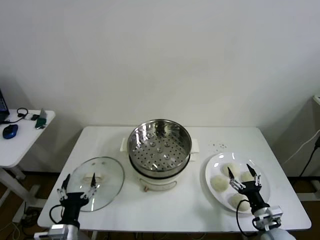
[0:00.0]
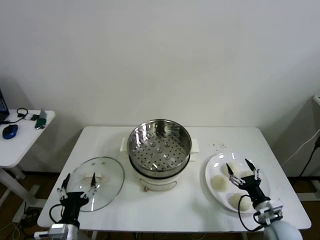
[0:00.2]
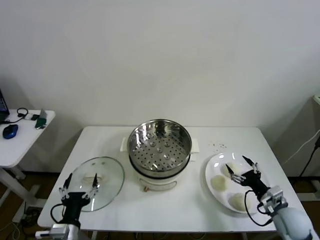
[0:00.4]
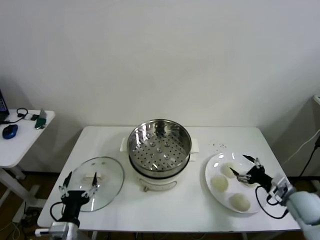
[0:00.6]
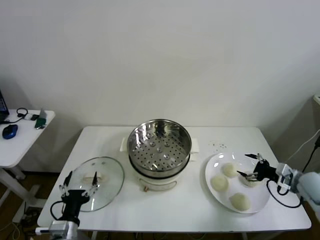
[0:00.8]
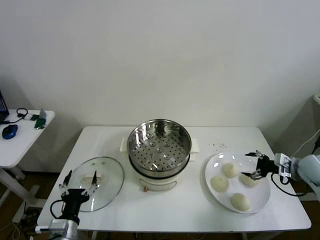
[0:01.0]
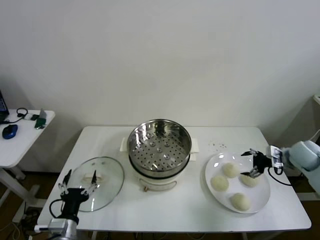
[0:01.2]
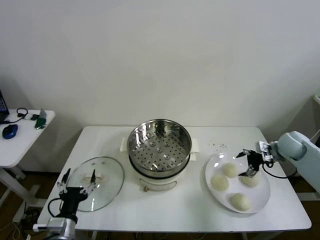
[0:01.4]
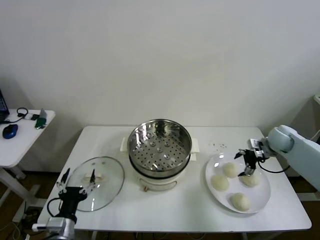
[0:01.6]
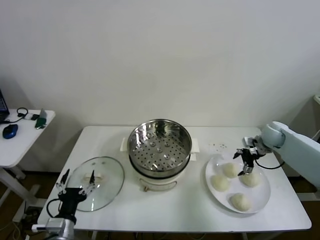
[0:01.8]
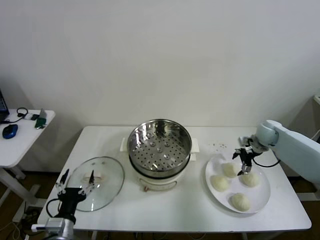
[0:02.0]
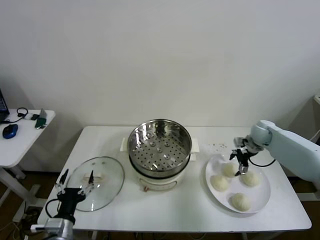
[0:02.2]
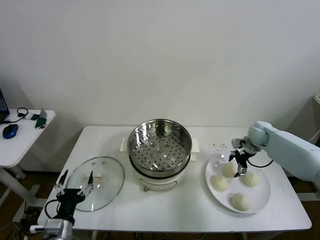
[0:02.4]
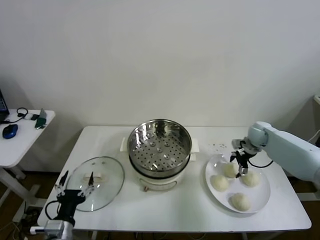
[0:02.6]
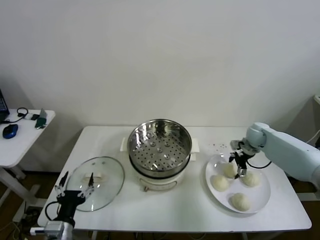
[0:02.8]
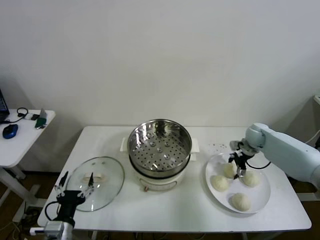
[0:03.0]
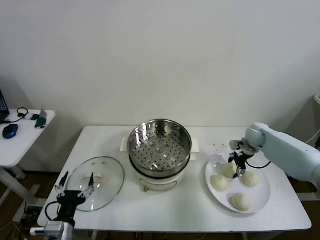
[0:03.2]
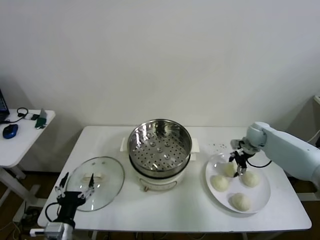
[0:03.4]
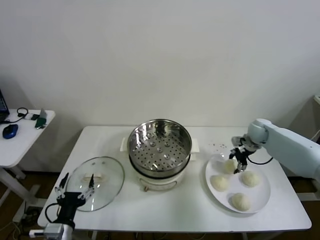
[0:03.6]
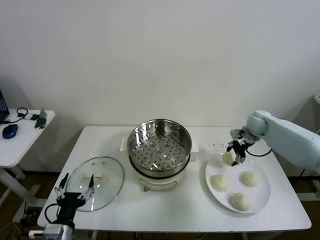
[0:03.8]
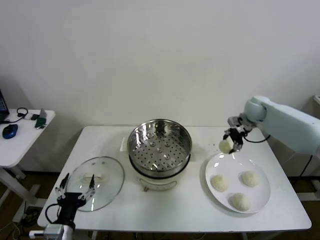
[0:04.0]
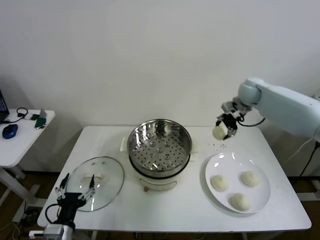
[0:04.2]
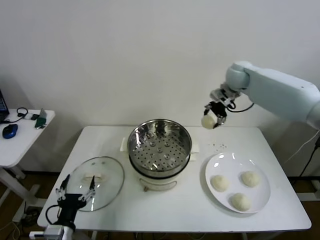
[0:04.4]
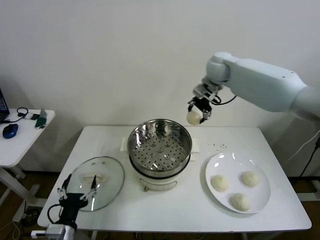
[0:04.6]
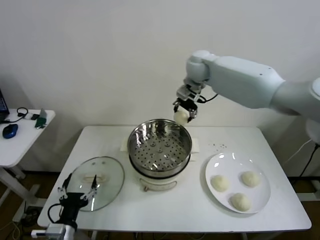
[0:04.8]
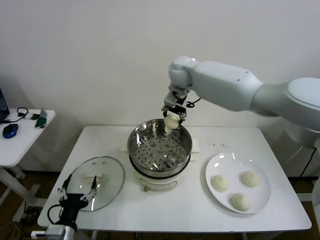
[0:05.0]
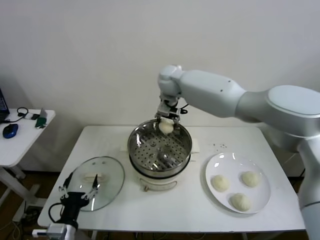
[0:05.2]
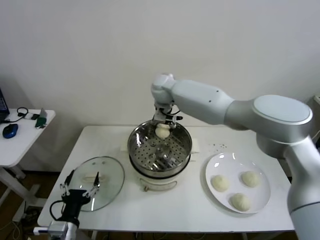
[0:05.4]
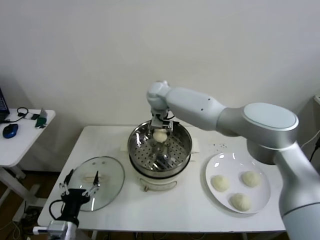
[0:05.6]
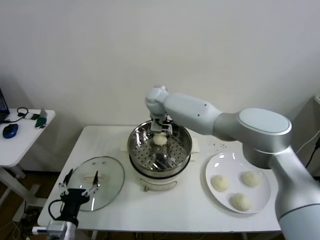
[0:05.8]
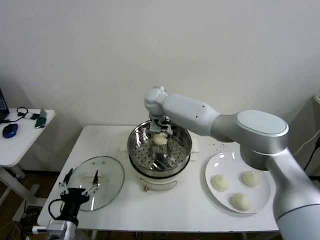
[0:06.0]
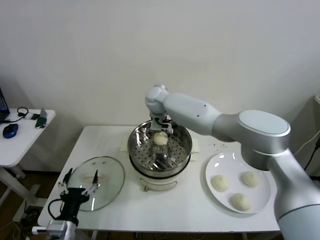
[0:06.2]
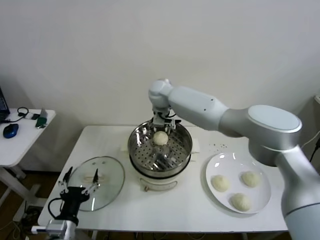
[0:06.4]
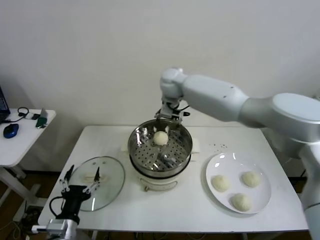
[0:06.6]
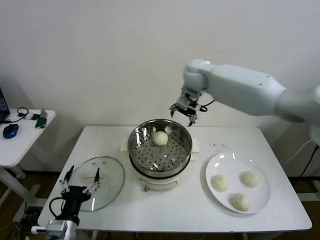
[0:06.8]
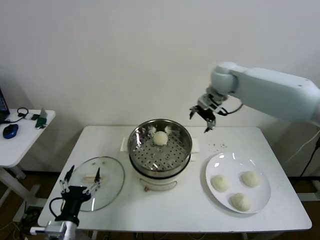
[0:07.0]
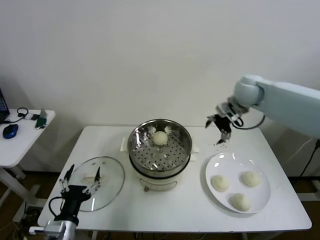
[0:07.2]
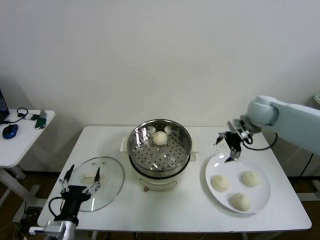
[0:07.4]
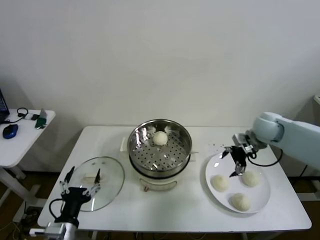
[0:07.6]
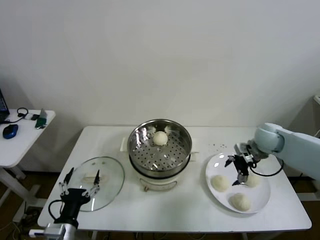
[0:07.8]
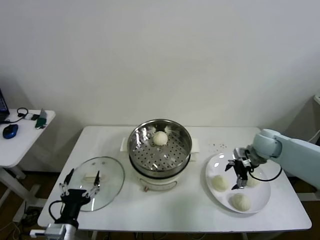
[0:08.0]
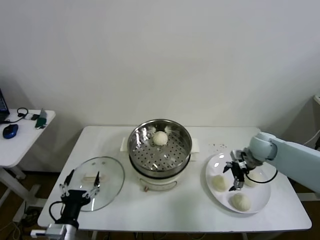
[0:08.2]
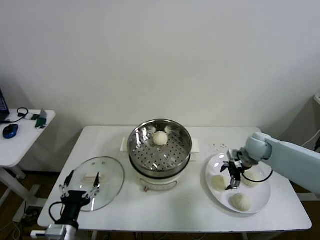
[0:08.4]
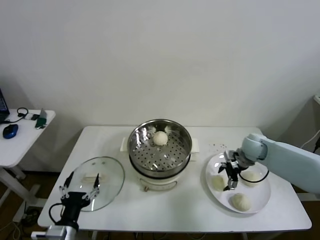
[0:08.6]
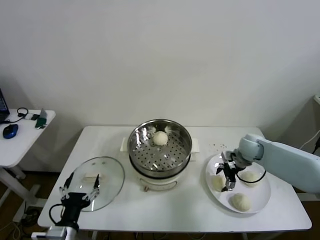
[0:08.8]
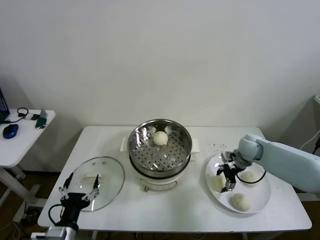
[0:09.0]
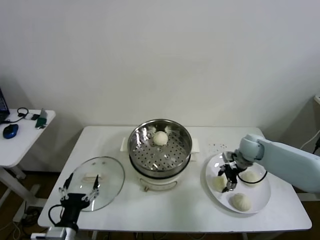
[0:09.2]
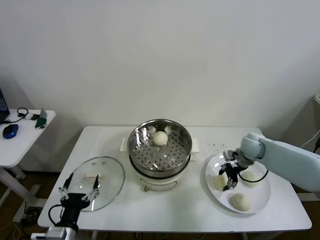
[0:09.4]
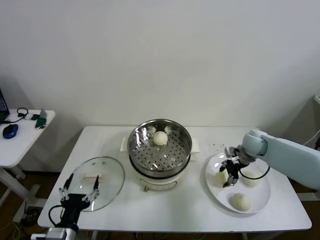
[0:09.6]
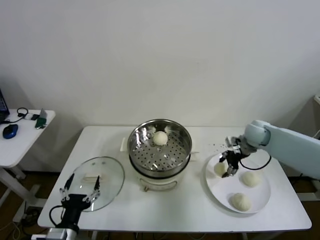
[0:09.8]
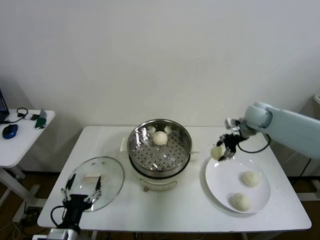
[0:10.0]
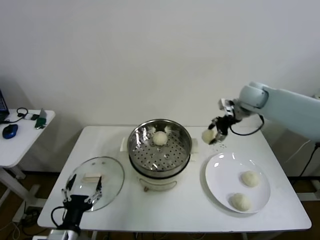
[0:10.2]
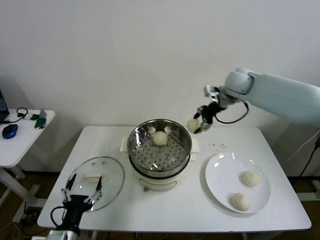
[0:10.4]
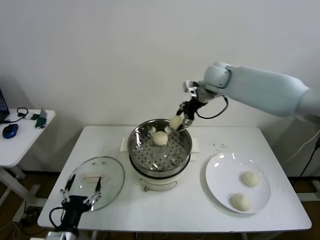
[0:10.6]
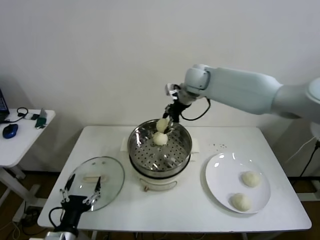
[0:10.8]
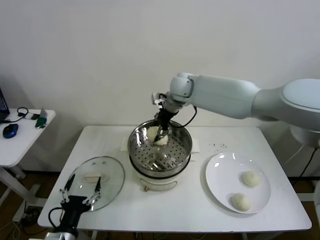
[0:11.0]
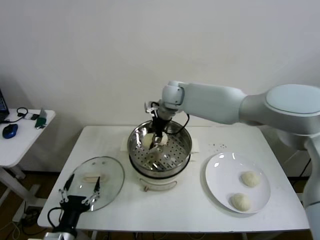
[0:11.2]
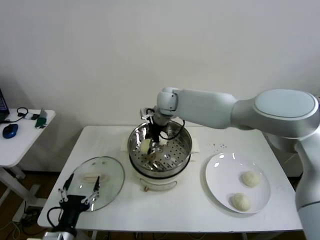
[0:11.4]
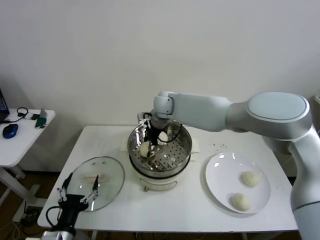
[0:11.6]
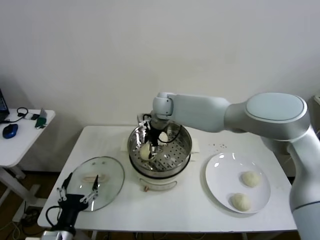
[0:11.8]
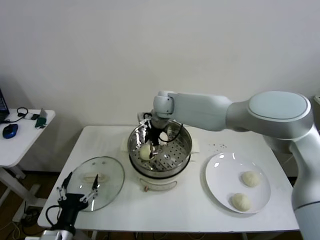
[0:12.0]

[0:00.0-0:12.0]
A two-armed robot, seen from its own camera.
Step, 0:00.0 to 0:03.2: Grasp the baozi in the plate with right gripper.
Step, 0:03.6 to 0:06.4: Place the baozi on the steamer with right gripper.
Step, 0:06.6 to 0:09.0: Grasp the baozi in the plate with right gripper.
0:01.6 to 0:03.0: The right gripper ends up some 5 cm from where it was, and closes.
0:03.0 to 0:04.4: The right gripper goes roughly 30 cm upward and to the left, and closes.
0:04.4 to 0:06.0: The right gripper travels to the left and downward by about 25 cm, and opens its fingers.
0:06.0 to 0:07.6: The right gripper moves to the right, about 40 cm.
0:07.6 to 0:09.0: The right gripper moves downward, roughly 10 cm, and closes up.
0:09.0 to 0:10.4: The right gripper moves upward, to the left and forward, some 30 cm, and closes its fingers.
0:10.4 to 0:12.0: The right gripper moves to the left, about 20 cm, and opens its fingers.

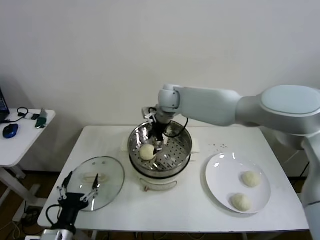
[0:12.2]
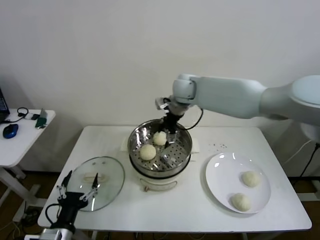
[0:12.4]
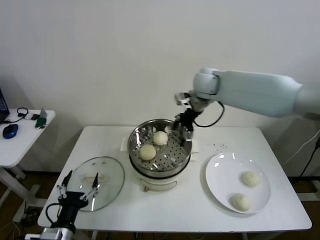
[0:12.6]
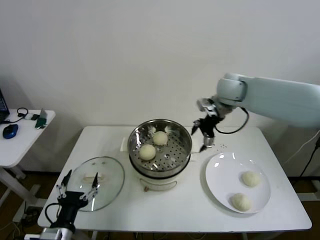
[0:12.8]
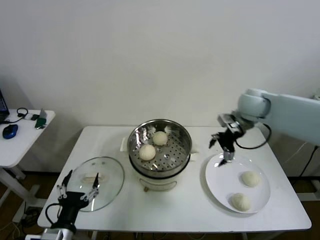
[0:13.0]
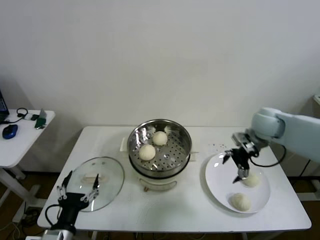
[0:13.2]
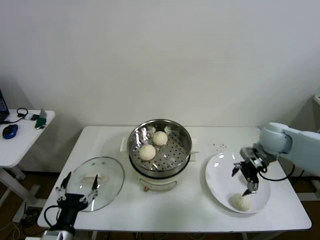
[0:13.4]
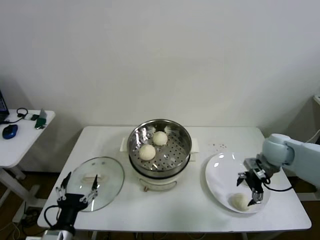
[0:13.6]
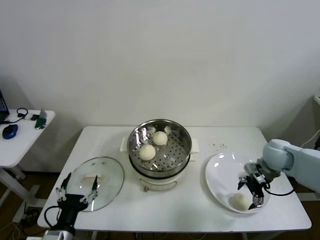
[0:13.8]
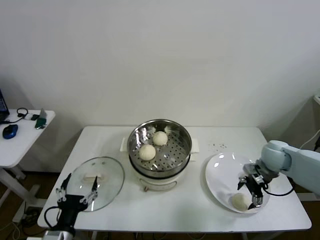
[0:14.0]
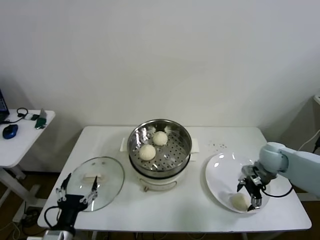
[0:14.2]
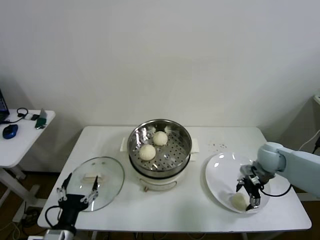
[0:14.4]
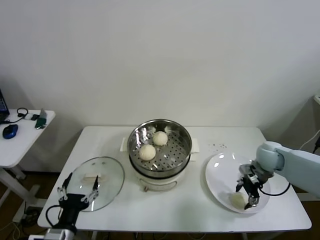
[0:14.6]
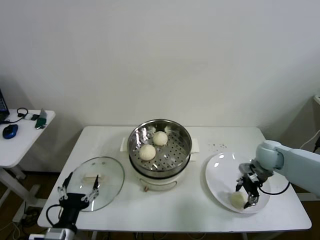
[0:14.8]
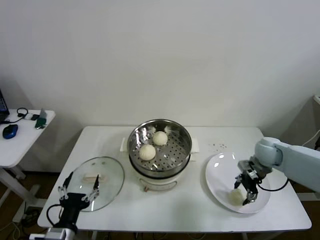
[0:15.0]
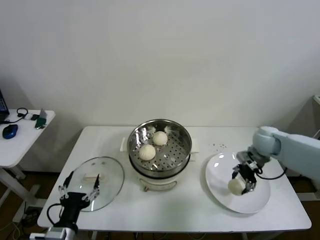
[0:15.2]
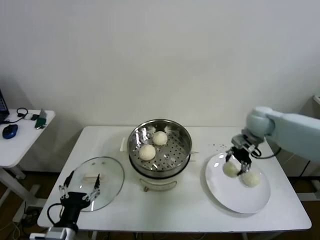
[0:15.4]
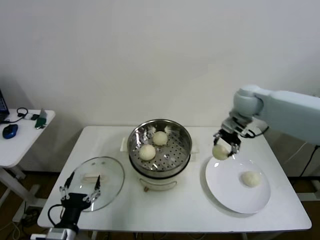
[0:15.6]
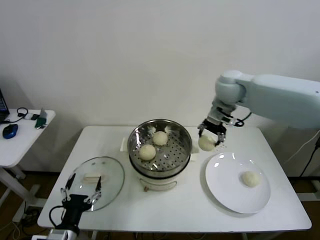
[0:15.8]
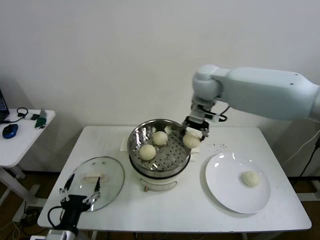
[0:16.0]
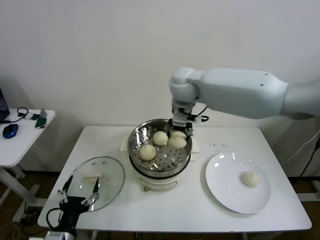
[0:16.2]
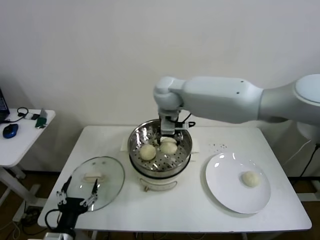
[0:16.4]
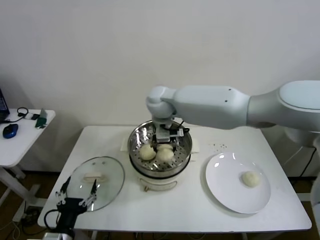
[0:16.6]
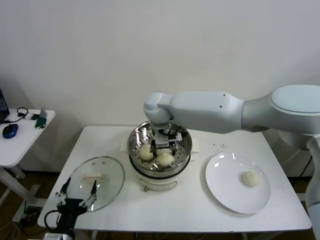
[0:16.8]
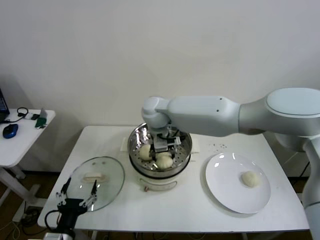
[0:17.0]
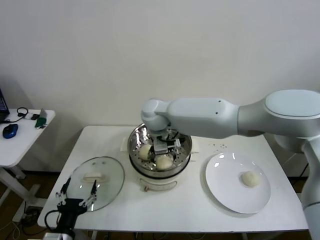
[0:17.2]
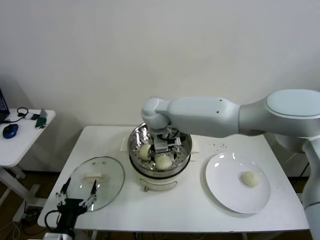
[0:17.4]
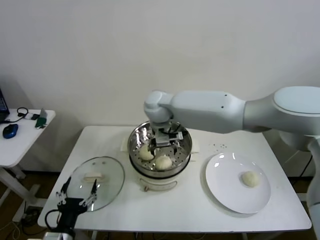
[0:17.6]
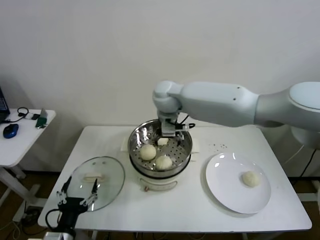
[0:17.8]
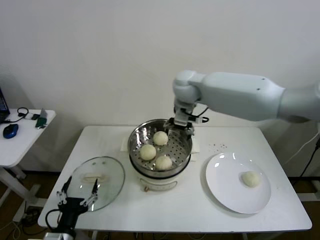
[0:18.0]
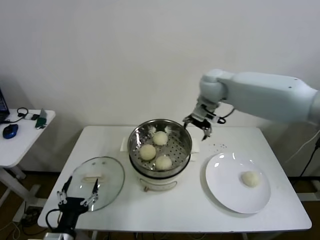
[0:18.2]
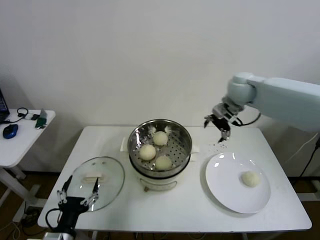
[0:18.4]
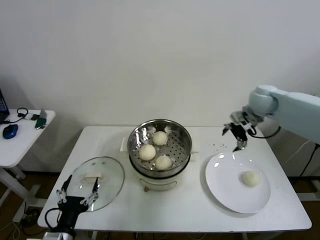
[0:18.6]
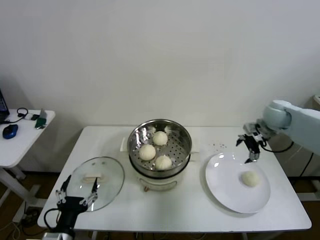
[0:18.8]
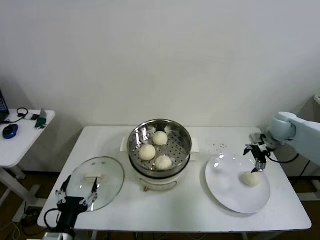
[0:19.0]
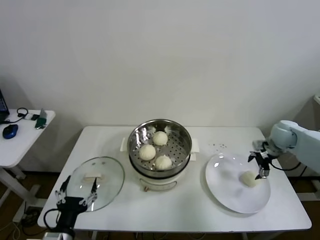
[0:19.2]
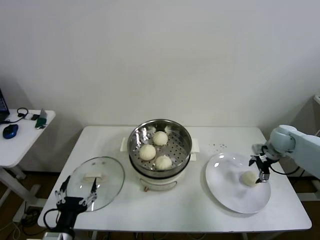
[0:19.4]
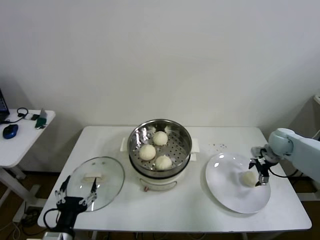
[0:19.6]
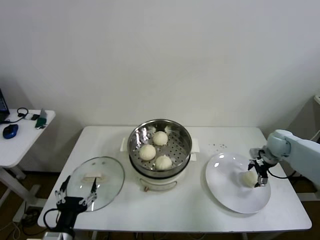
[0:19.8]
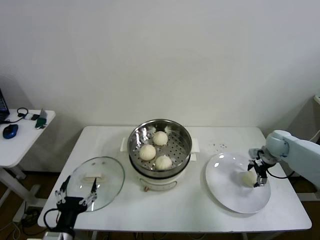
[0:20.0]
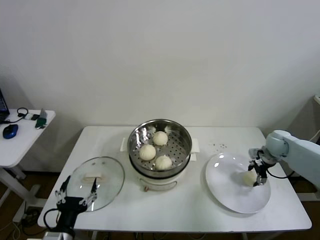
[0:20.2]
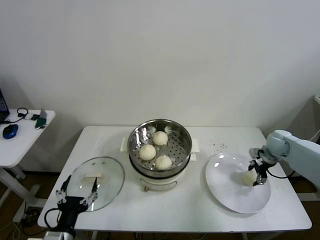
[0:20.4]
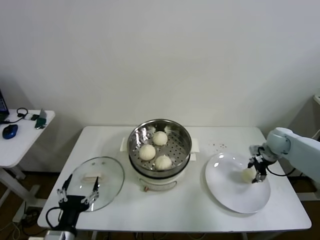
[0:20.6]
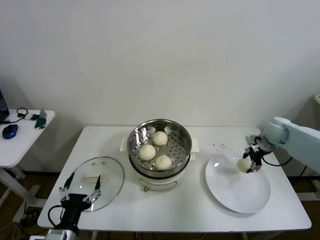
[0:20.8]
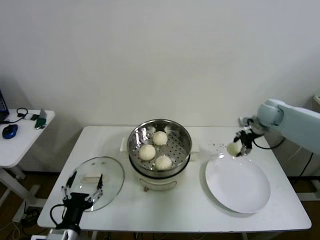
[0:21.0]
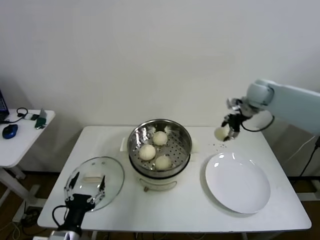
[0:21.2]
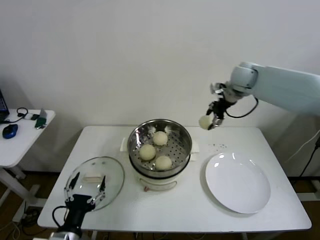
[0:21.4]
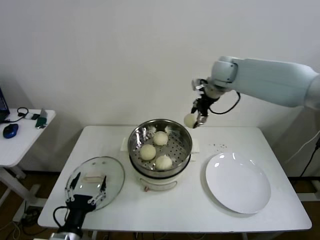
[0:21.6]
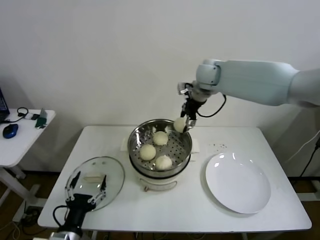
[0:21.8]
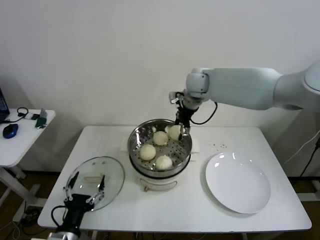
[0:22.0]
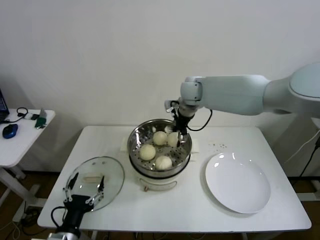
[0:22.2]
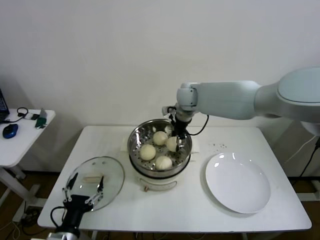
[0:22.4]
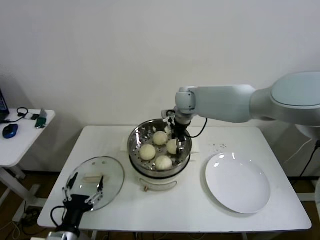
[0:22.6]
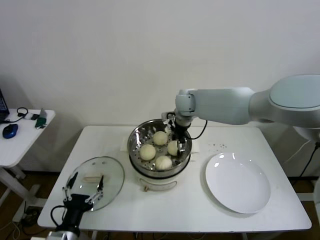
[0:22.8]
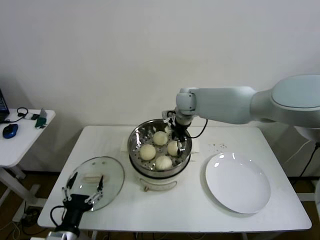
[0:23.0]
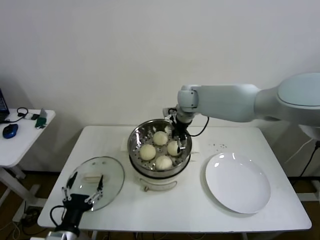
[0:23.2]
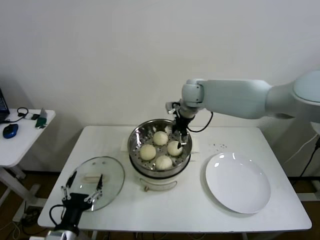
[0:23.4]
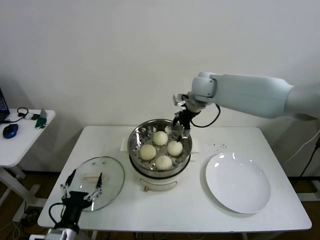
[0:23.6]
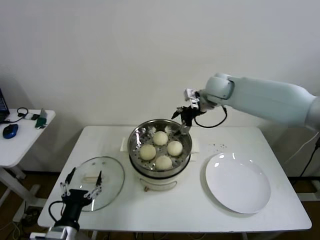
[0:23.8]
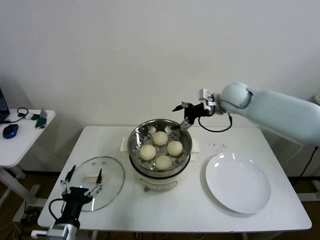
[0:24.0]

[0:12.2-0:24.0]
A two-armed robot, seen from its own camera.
Step, 0:12.2 to 0:14.6: Grasp the baozi in the plate with right gripper.
Step, 0:15.0 to 0:17.4: Place the baozi on the steamer with right gripper.
Step, 0:17.6 to 0:20.4: Grasp the baozi in the plate with right gripper.
Step, 0:20.6 to 0:23.0: Place the baozi on the steamer with right gripper.
0:12.2 to 0:13.6: The right gripper moves to the right and backward, approximately 35 cm.
0:13.6 to 0:15.2: The right gripper travels forward by some 5 cm, and closes up.
0:15.2 to 0:16.6: The right gripper shifts about 35 cm to the left.
0:16.6 to 0:18.2: The right gripper travels to the right by about 20 cm, and opens its fingers.
0:18.2 to 0:19.6: The right gripper shifts roughly 35 cm to the right and downward.
0:19.6 to 0:21.0: The right gripper goes approximately 15 cm upward, forward and to the left, and closes.
0:21.0 to 0:22.6: The right gripper travels to the left by some 30 cm.
0:22.6 to 0:24.0: The right gripper shifts some 15 cm to the right, and opens up.
